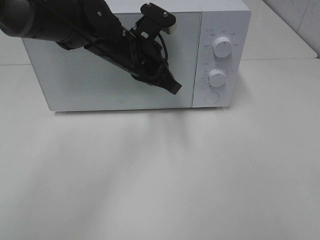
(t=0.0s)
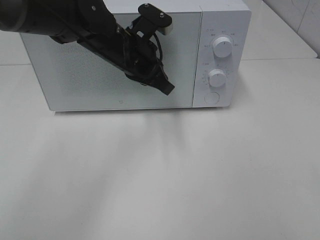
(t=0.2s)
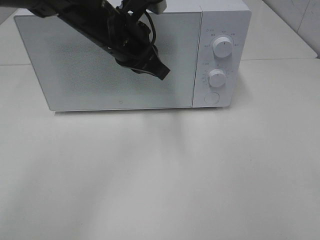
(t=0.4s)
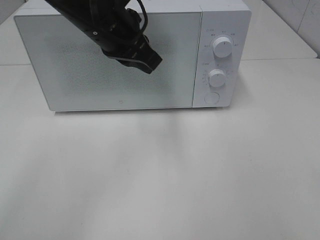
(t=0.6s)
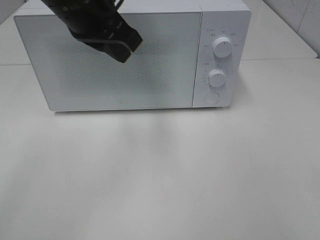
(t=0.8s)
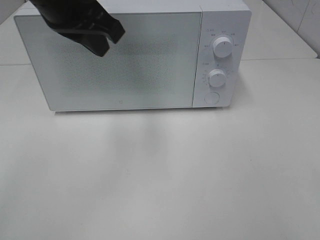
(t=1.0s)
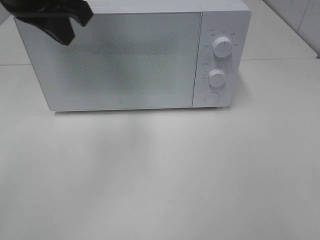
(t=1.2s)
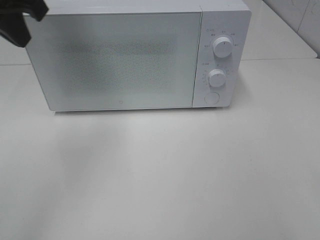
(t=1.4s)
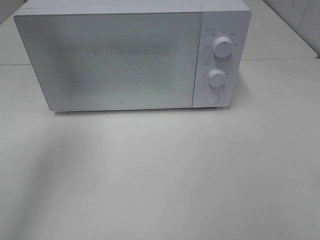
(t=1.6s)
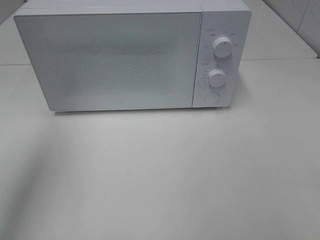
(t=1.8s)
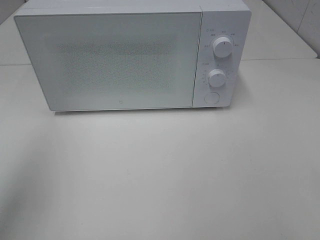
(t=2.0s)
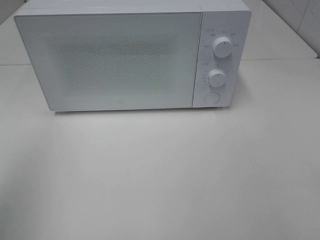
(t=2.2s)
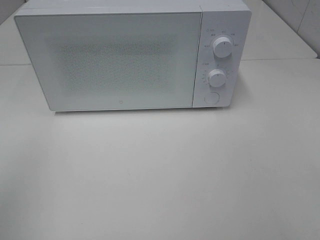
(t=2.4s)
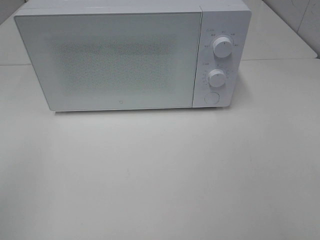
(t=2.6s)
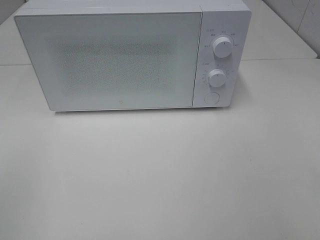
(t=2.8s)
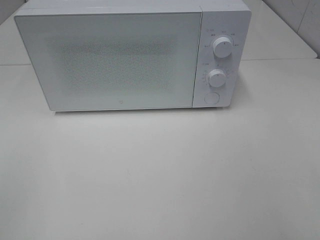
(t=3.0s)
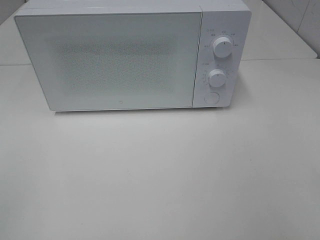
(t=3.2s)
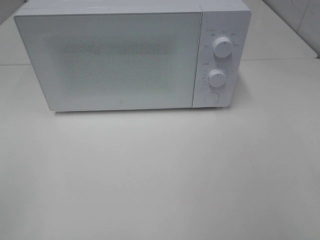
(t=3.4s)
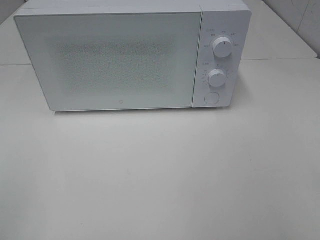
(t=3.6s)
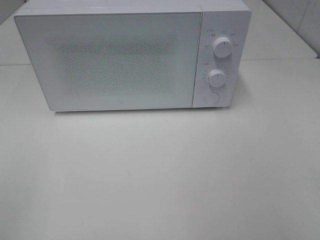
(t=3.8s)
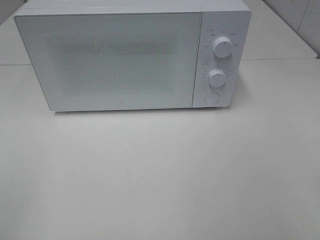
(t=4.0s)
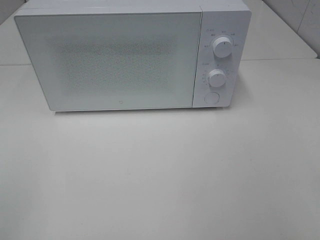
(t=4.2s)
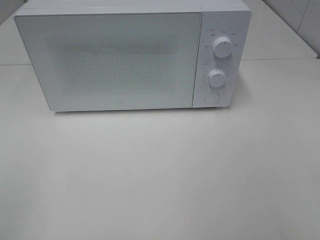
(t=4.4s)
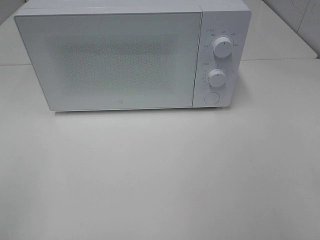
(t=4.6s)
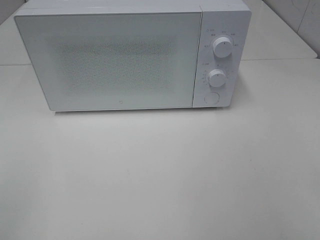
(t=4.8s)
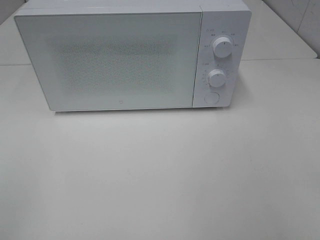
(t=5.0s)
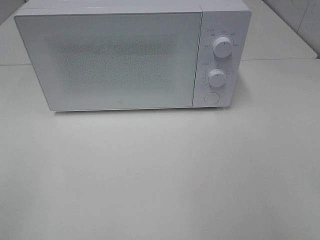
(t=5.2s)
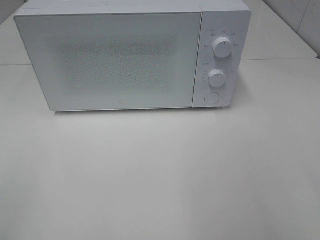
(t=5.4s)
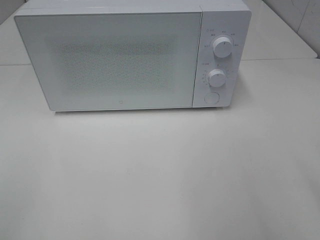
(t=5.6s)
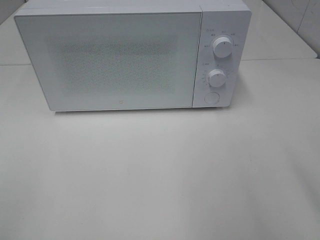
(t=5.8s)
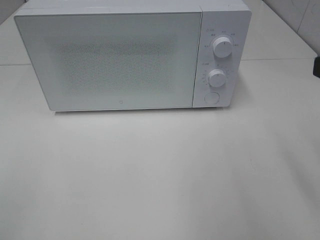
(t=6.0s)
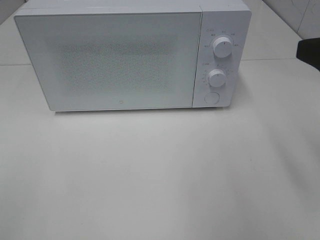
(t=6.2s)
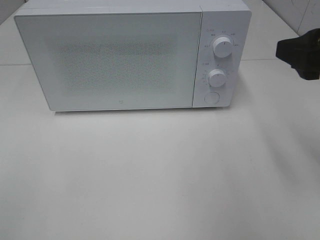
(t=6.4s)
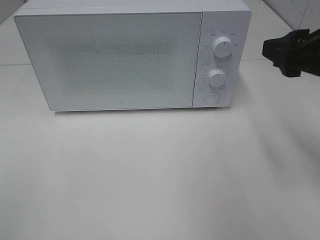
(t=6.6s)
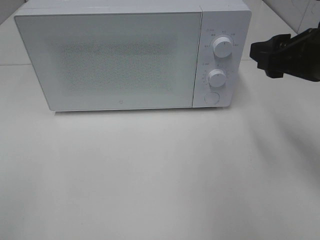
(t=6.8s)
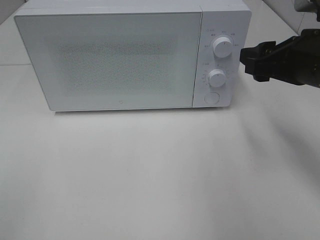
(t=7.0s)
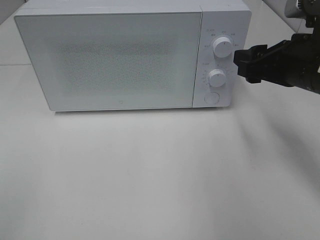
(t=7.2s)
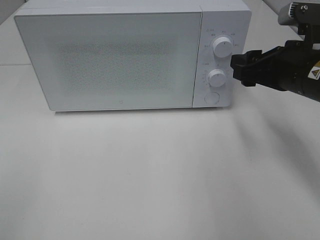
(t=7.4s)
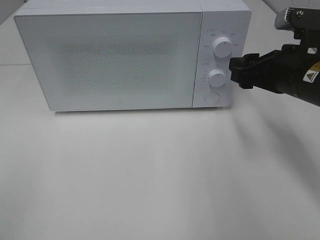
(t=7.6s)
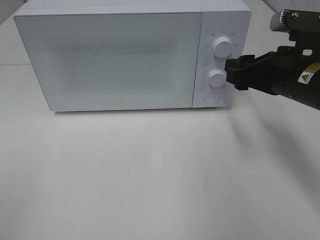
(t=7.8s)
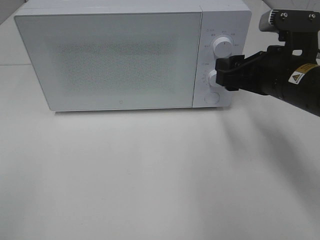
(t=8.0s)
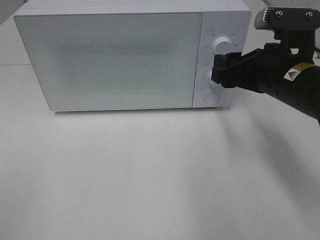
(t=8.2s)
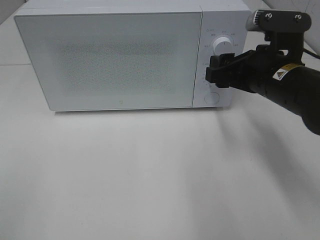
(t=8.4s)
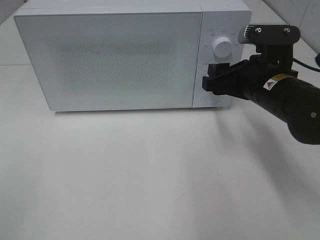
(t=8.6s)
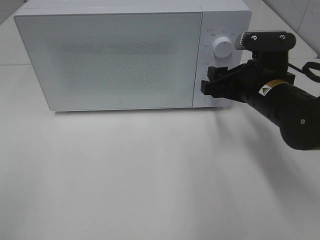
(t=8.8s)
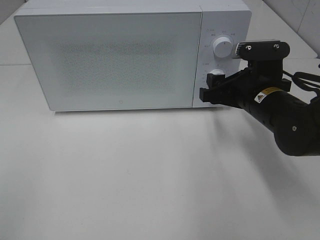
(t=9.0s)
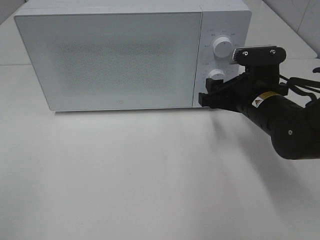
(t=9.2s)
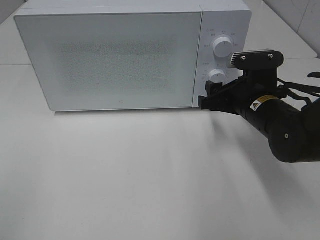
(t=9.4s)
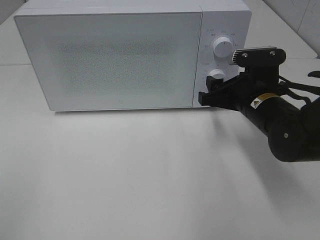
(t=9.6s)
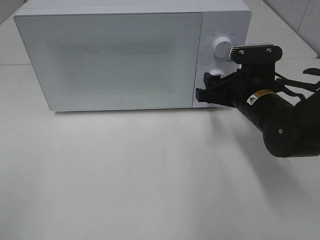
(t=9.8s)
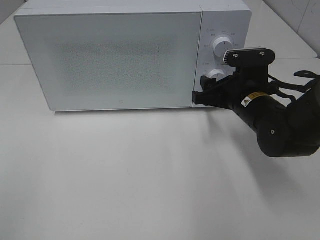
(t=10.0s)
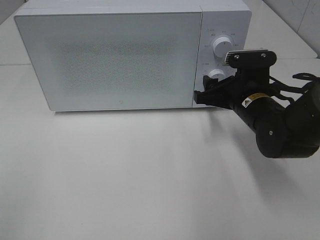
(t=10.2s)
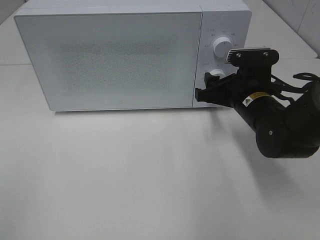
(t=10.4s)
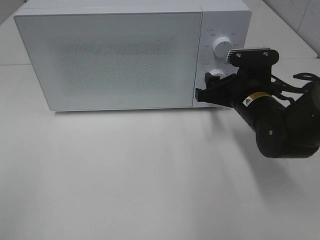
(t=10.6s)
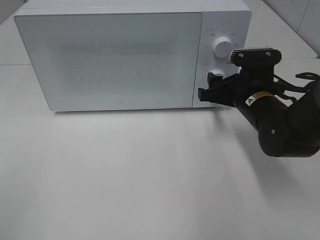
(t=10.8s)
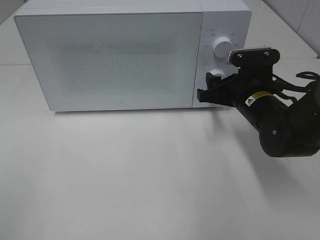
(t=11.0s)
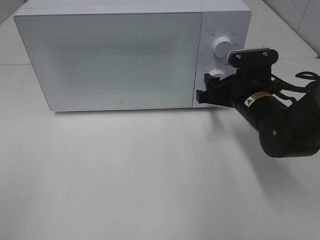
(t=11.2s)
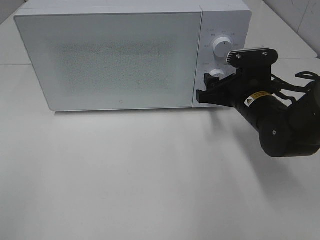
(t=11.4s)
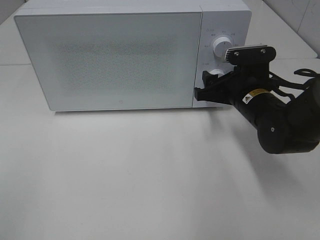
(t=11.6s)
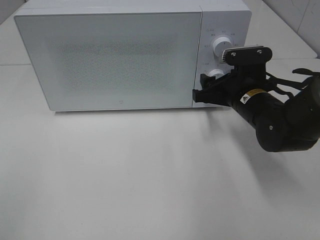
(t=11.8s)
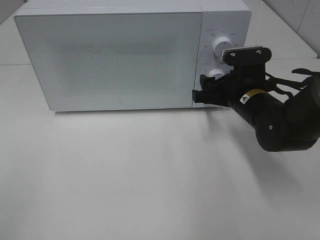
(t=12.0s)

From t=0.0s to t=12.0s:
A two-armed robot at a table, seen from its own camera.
Task of the whole recording: Heat the burger.
From t=0.0s to t=1.6s: The left gripper heads to the left, upward and backward, covering about 30 cm.
From t=1.6s to t=3.0s: The left gripper shifts approximately 30 cm backward.
From t=6.0s to t=7.6s: The right gripper travels forward and downward by about 15 cm.
From t=7.6s to t=9.0s: The right gripper is displaced downward by roughly 5 cm.
From t=9.0s to t=10.4s: There are only small adjustments of the grippers.
From t=10.4s to t=12.0s: Both grippers stay put.

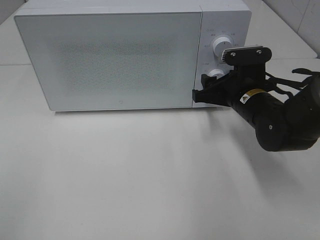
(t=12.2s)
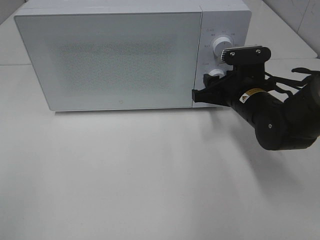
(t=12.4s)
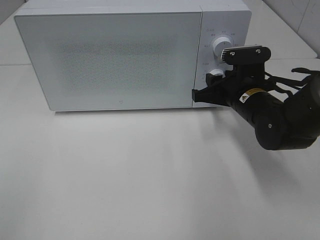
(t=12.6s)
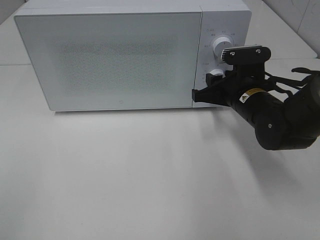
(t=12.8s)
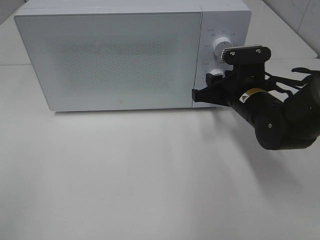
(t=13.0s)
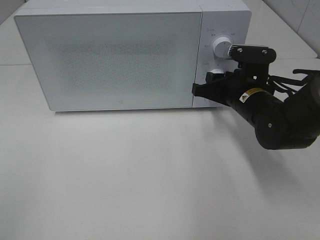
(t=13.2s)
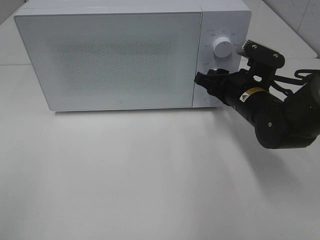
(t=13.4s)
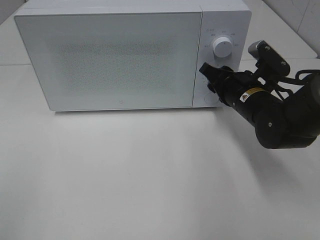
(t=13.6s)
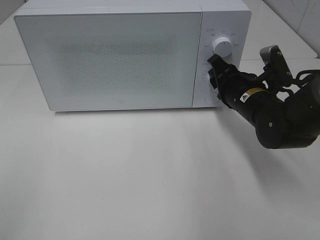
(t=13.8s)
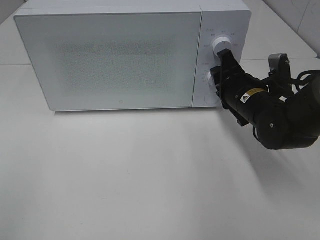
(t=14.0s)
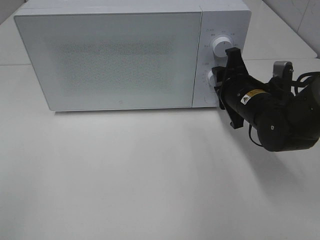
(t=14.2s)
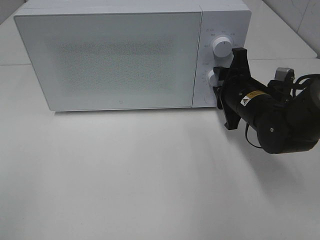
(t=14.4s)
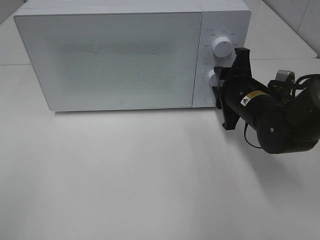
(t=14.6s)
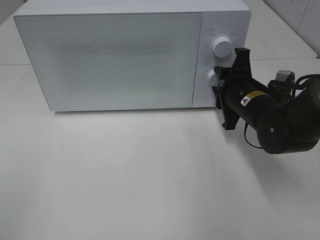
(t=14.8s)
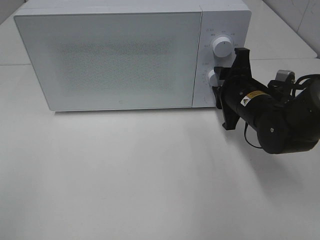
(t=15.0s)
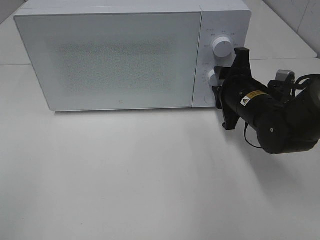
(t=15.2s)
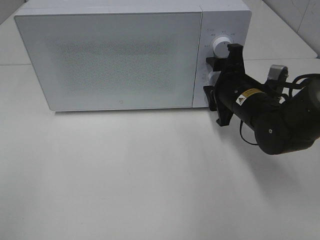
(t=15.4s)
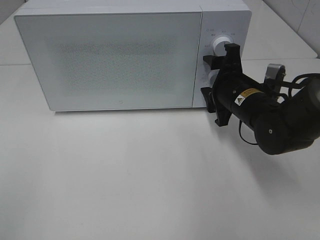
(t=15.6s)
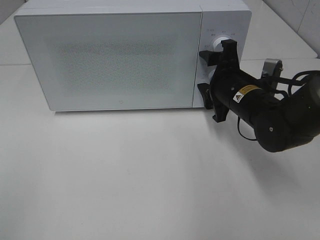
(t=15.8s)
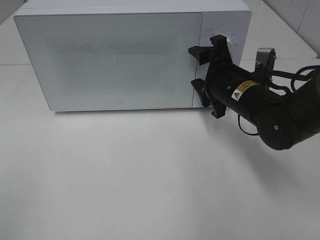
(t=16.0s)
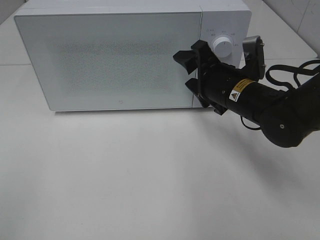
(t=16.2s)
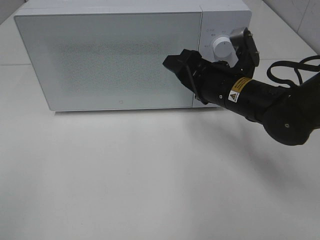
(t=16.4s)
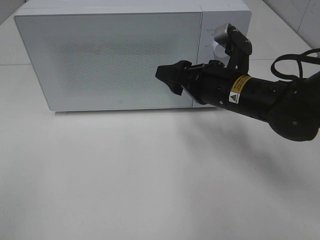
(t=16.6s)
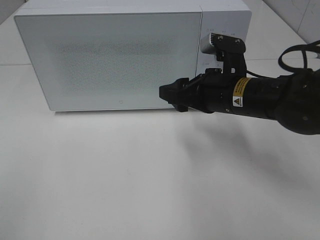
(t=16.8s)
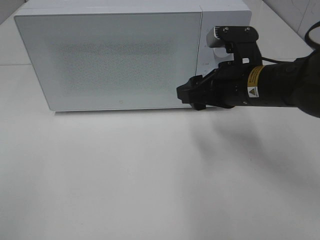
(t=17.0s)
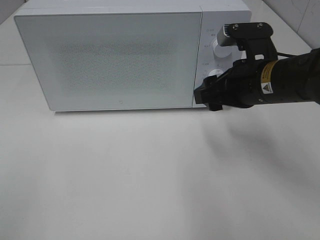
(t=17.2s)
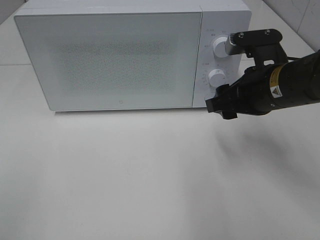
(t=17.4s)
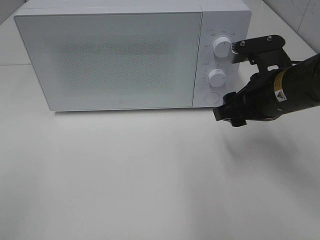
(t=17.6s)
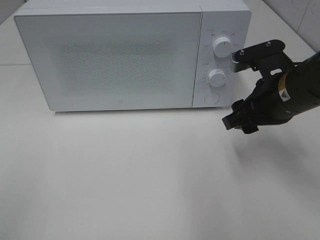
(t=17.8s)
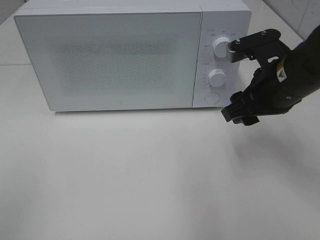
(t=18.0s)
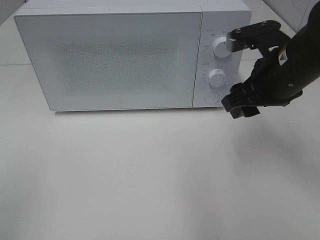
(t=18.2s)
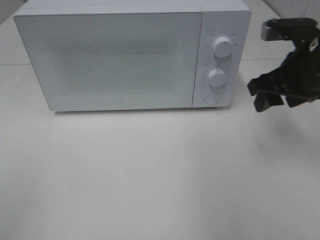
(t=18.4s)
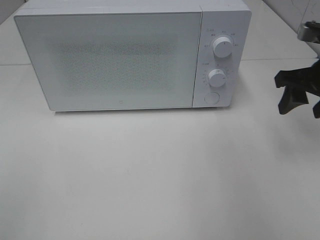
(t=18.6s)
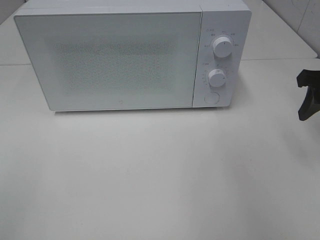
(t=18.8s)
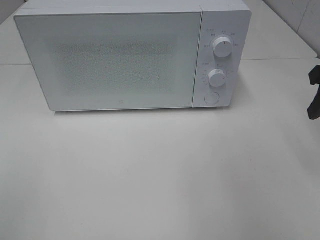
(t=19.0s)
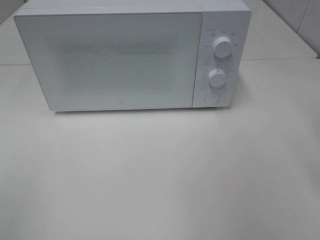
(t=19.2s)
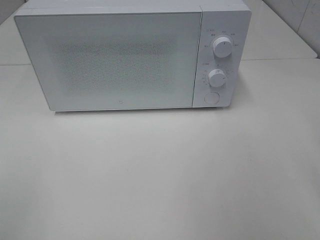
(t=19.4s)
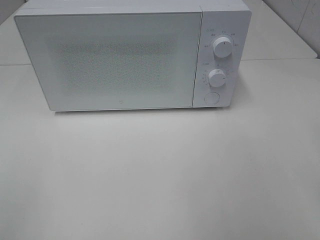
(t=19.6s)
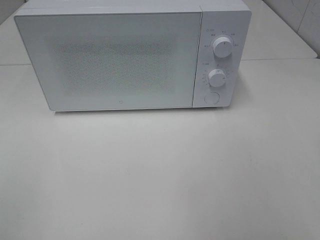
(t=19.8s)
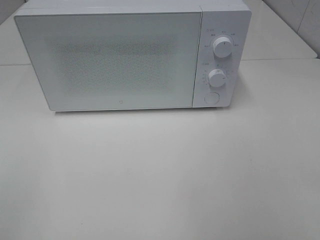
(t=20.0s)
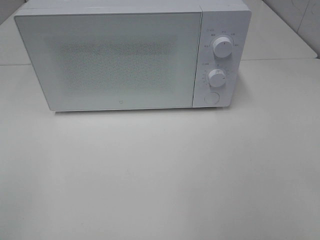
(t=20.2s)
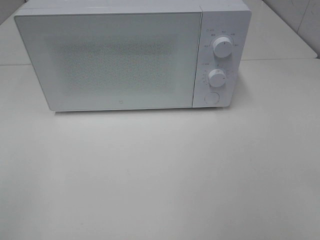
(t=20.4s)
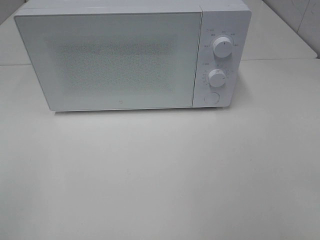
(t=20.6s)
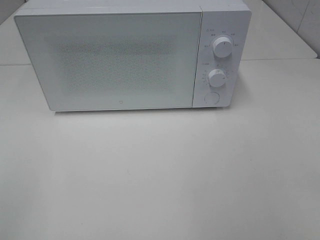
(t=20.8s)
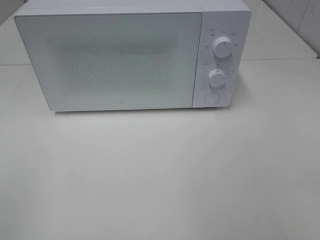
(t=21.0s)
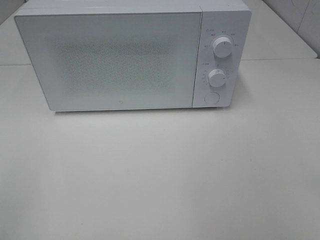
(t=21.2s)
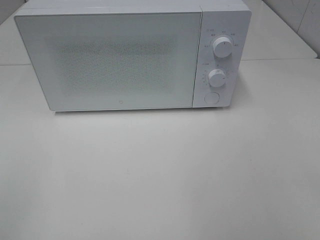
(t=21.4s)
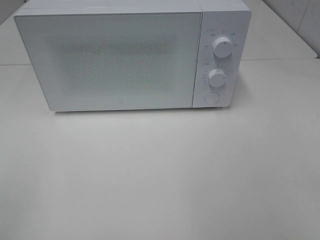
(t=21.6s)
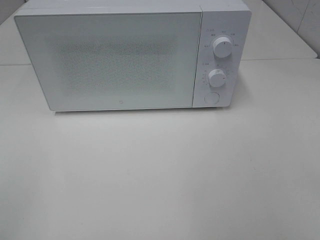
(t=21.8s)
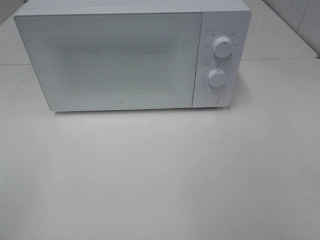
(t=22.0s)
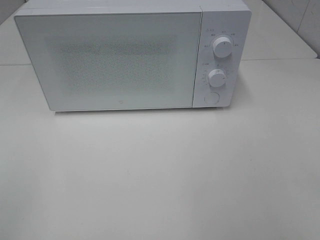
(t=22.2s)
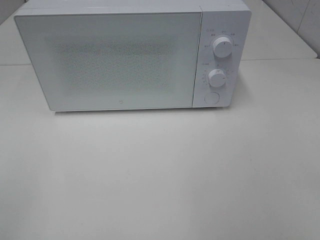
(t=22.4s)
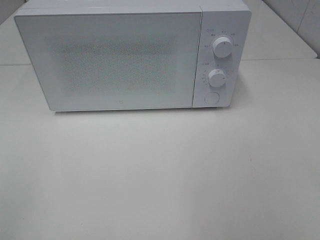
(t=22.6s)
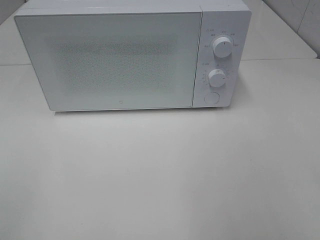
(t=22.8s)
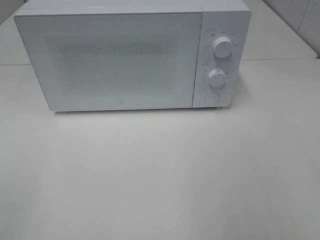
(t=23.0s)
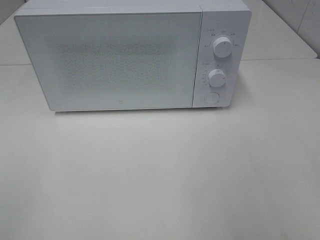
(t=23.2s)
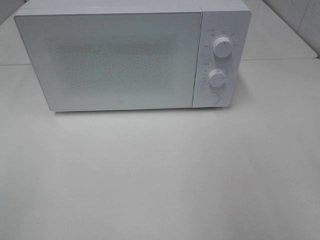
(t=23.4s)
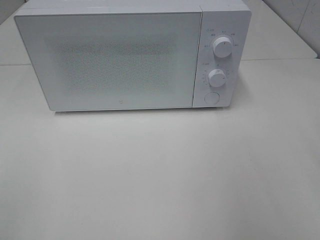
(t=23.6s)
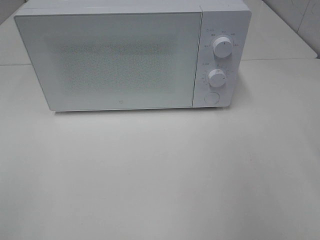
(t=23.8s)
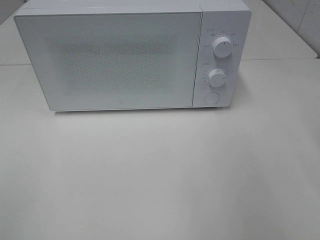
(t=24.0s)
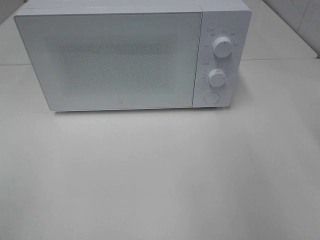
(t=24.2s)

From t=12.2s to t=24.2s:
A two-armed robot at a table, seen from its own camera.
Task of the whole recording: Heat the burger.
Step, from t=12.2s to t=15.2s: Right hand: twist timer button.
From t=15.2s to t=16.6s: The right gripper changes place by some 5 cm.
From t=16.6s to t=18.2s: The right gripper shifts roughly 10 cm to the right and upward.
From t=18.2s to t=19.8s: The right gripper goes about 20 cm backward and to the right.
